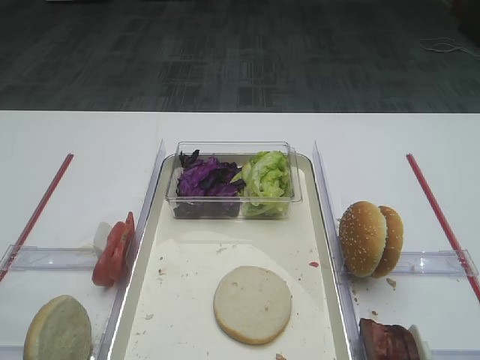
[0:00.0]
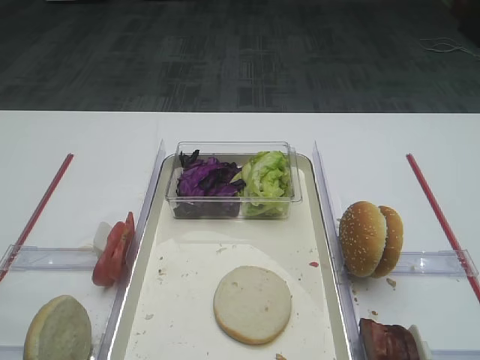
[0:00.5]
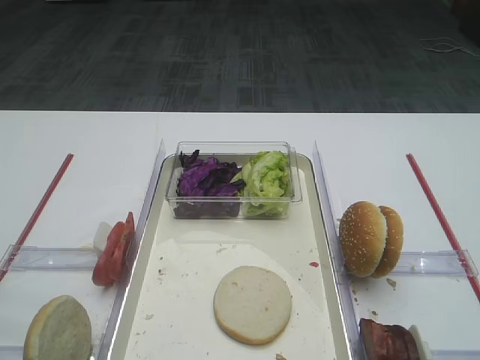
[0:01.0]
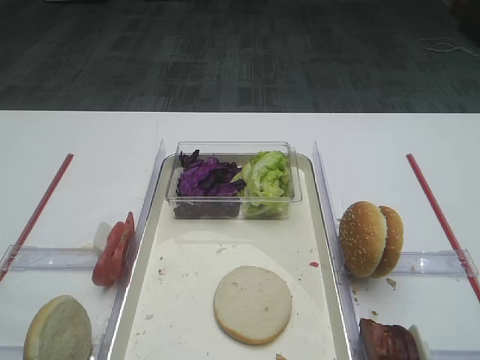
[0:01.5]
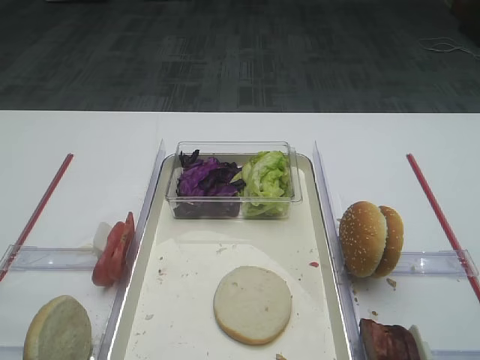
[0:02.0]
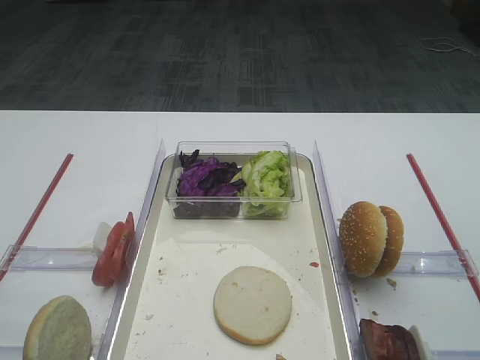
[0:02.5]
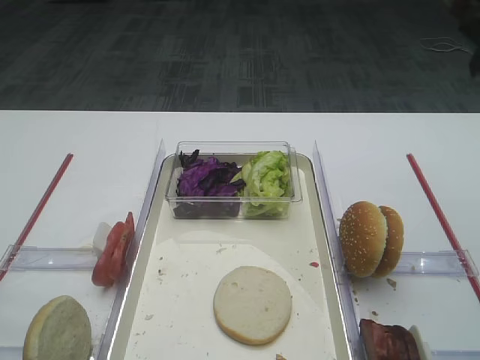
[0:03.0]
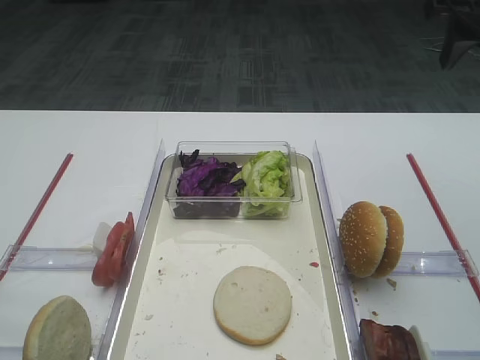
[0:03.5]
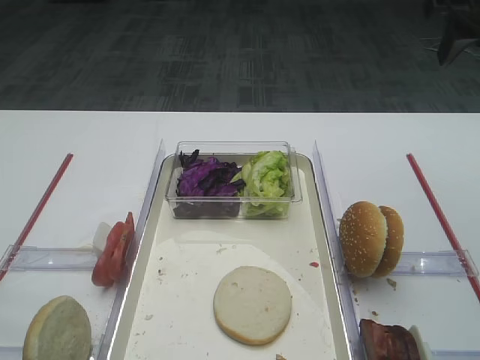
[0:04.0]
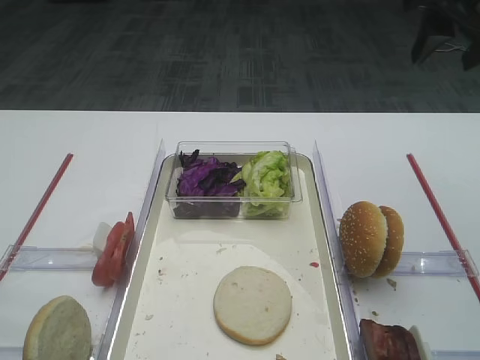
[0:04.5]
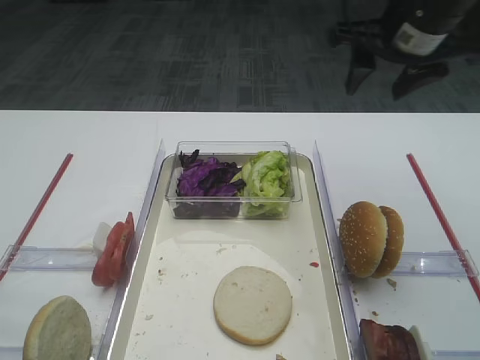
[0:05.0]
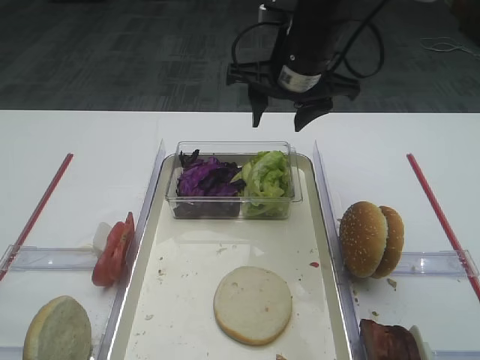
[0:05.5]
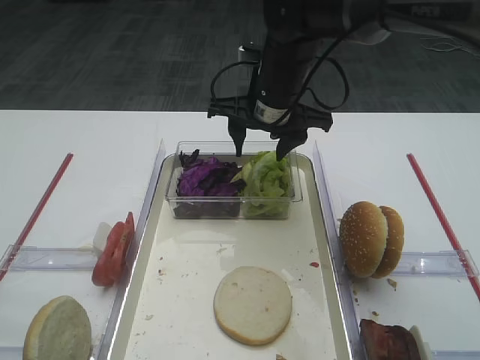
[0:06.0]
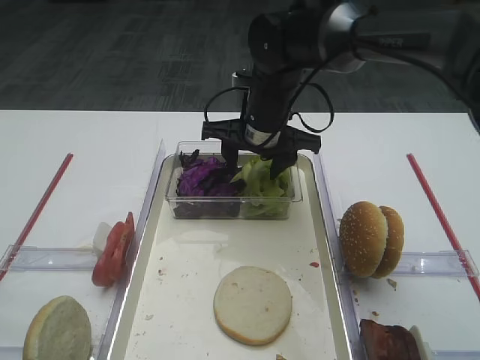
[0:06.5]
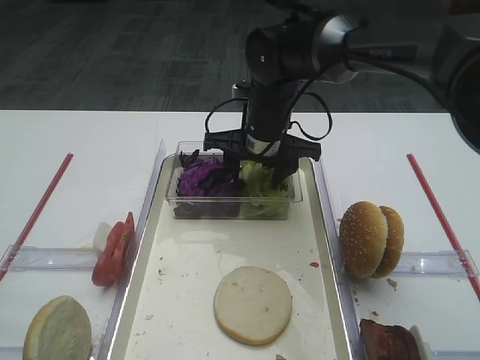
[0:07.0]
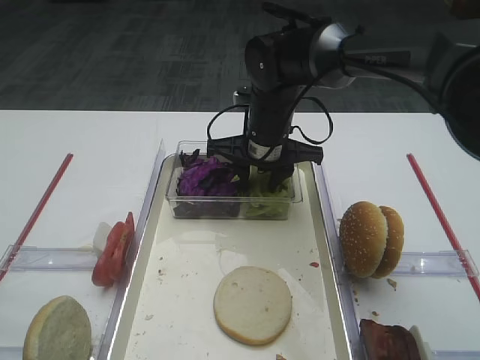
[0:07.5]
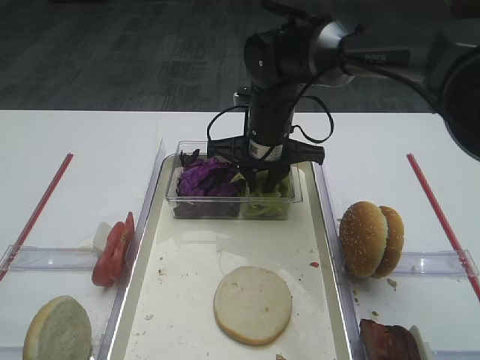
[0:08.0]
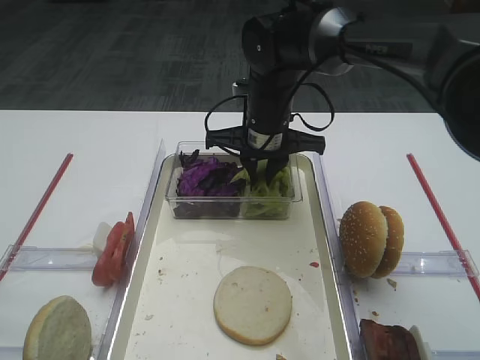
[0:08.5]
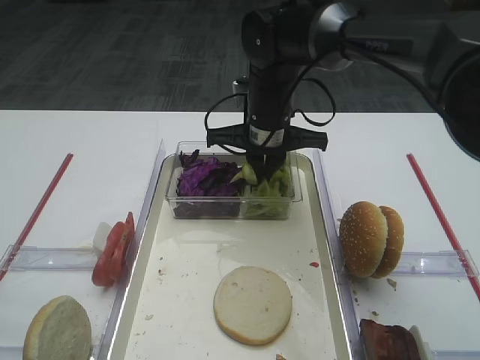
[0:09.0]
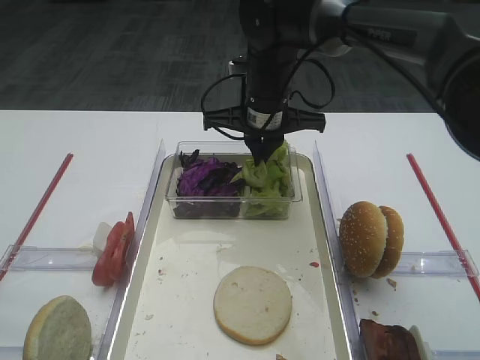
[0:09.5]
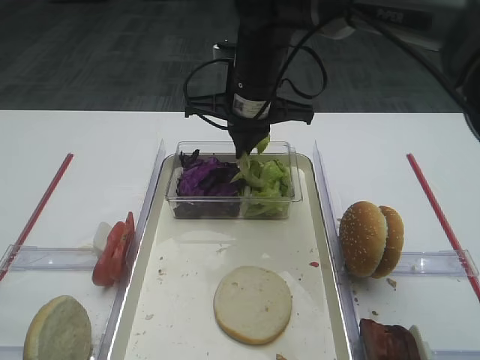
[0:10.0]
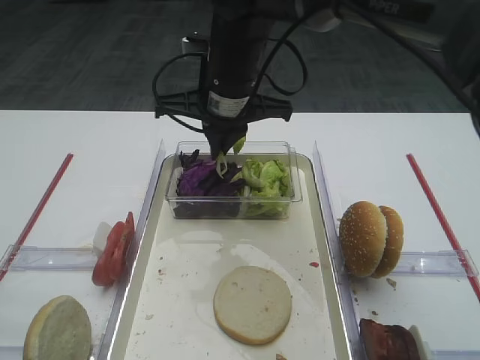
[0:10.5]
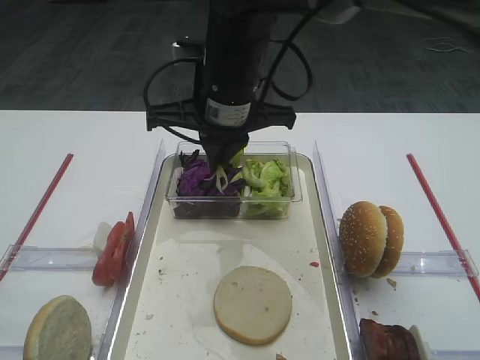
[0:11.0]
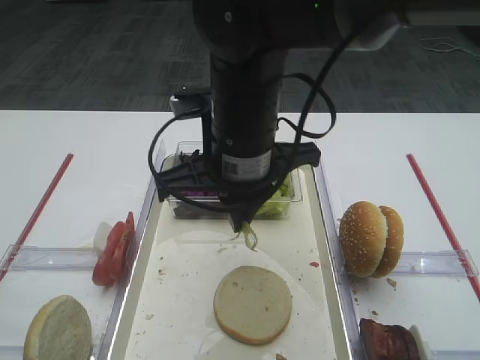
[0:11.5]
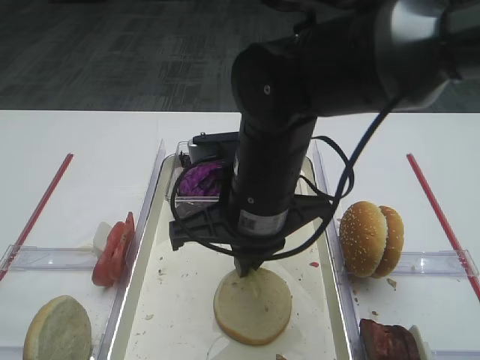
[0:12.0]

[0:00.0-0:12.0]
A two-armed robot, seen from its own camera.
Step, 0:00.0 to 0:09.5: Pick up the lettuce leaf with the right gripper.
0:04.0 to 0:06.0: The right gripper heads to the left and downward, covering approximately 25 cm.
0:06.0 to 0:08.0: The right gripper travels downward by approximately 5 cm, and closes up.
0:08.0 to 0:10.0: The right gripper travels upward by about 5 cm.
0:10.0 to 0:12.0: The right gripper is displaced backward by some 15 cm.

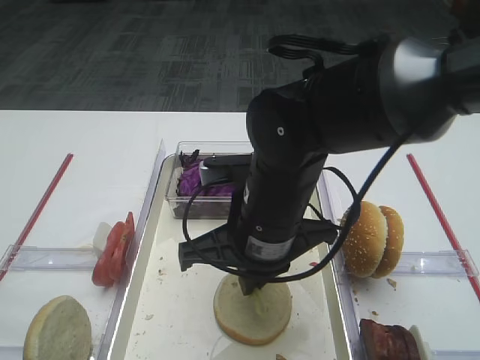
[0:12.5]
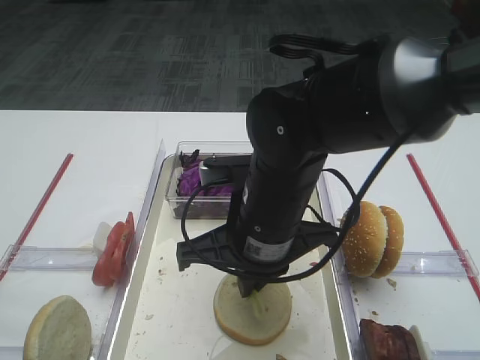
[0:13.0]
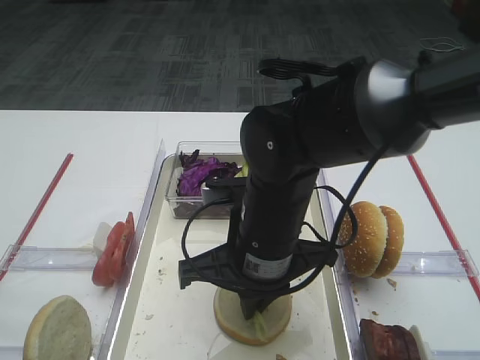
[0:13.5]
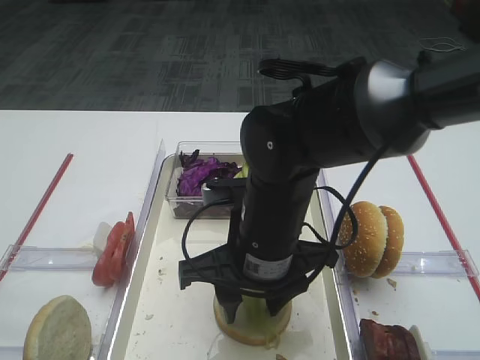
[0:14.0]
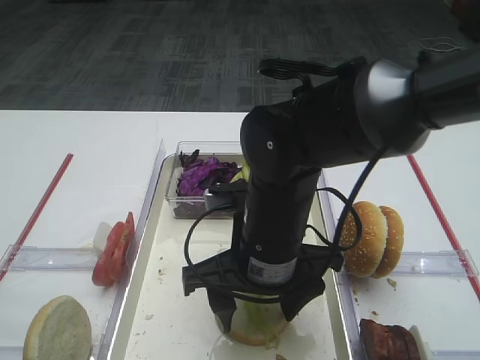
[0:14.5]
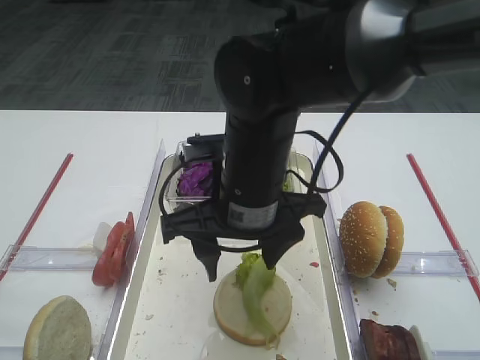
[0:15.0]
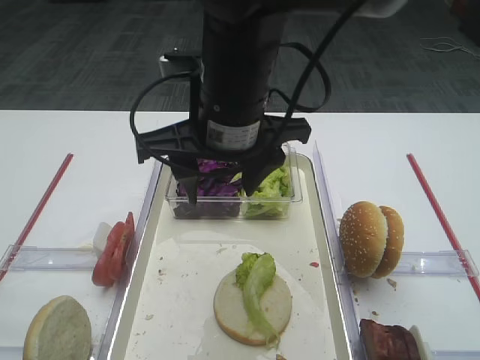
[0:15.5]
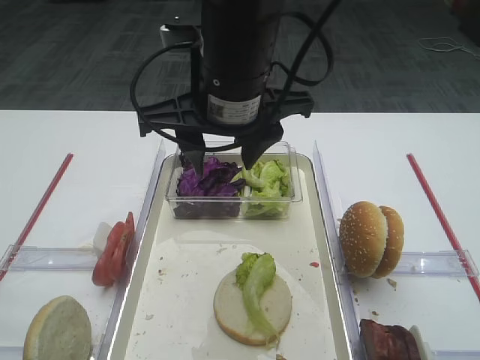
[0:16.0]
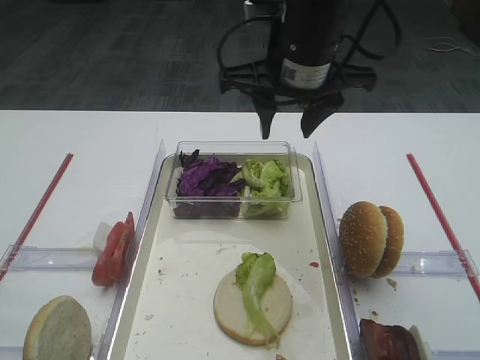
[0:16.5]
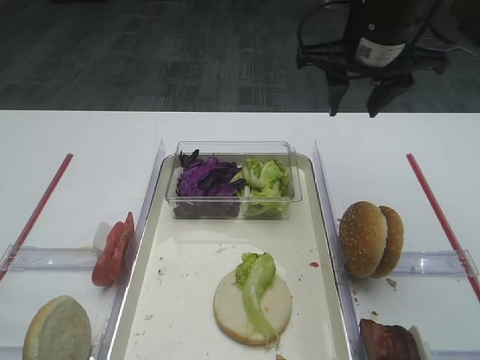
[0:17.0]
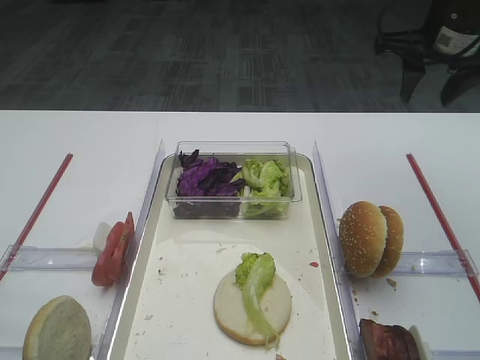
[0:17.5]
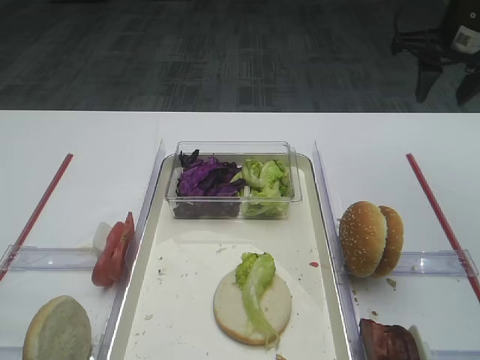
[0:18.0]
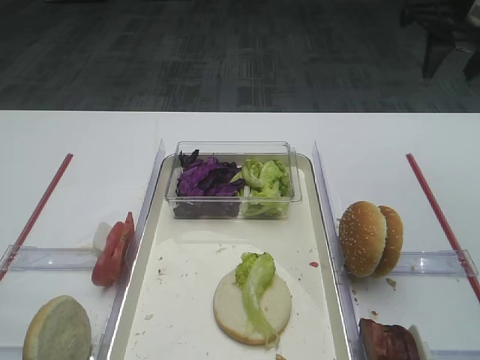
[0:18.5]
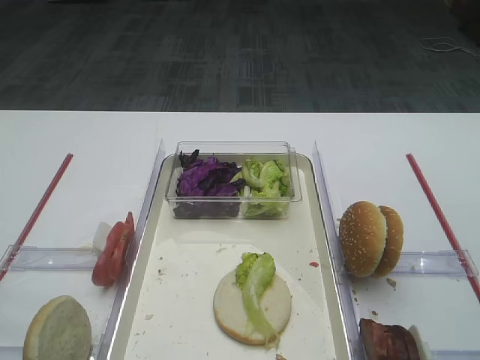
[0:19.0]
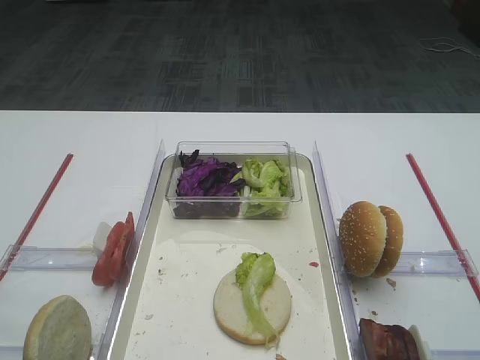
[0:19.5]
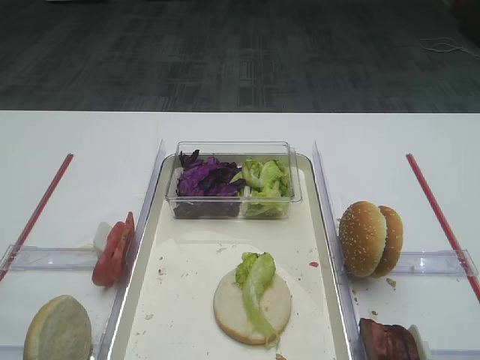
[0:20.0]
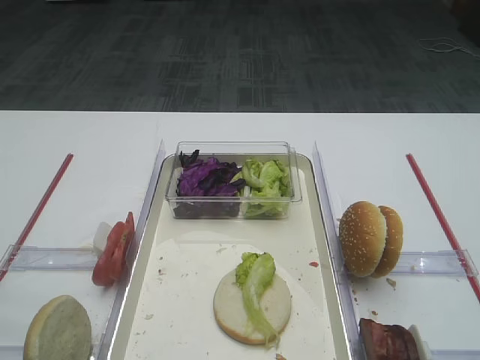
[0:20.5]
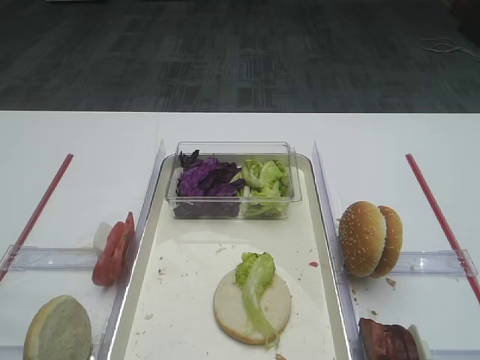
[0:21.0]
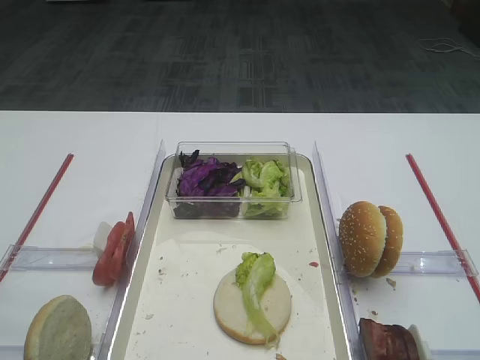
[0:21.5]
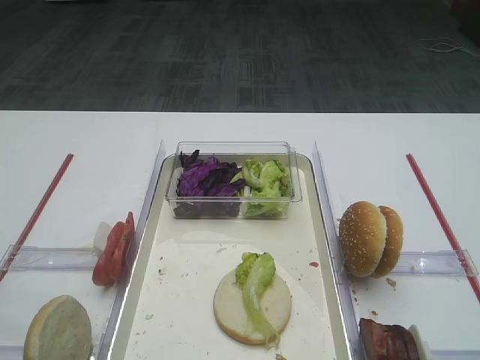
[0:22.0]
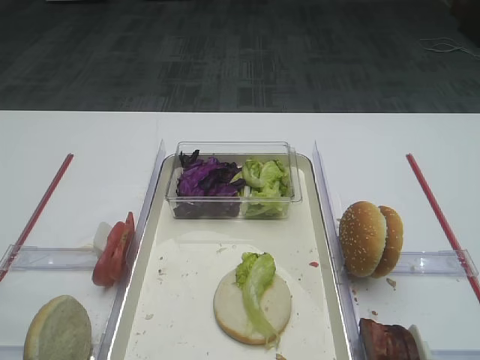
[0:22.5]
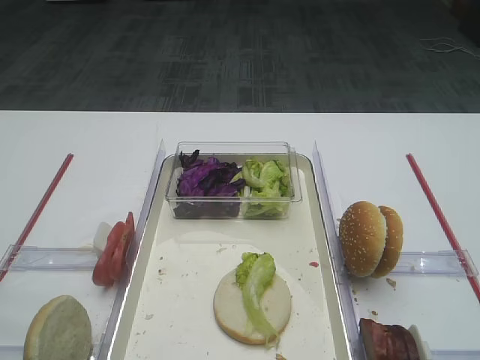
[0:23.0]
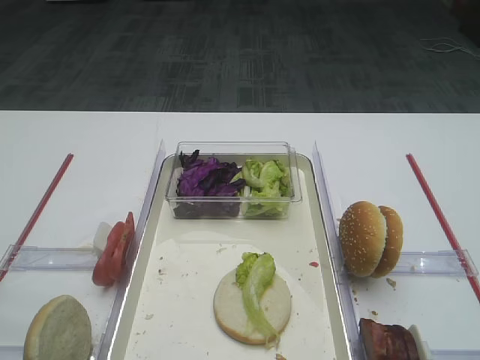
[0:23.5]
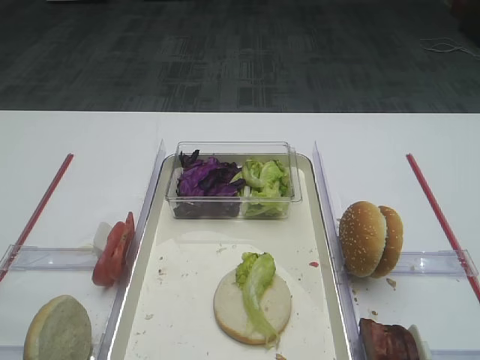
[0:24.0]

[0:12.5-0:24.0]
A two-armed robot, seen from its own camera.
Step, 0:12.5 to 0:14.5: Place the lettuce leaf on the bread slice with the right gripper.
0:12.5 to 0:14.5: The right gripper opens its fingers.
0:14.5 to 0:16.5: The right gripper moves upward and forward, some 20 cm.
0:16.5 to 0:18.5: The right gripper heads to the right, covering approximately 20 cm.
0:18.5 to 0:20.0: The right gripper moves backward, approximately 35 cm.
0:22.0 to 0:24.0: Neither gripper changes place.

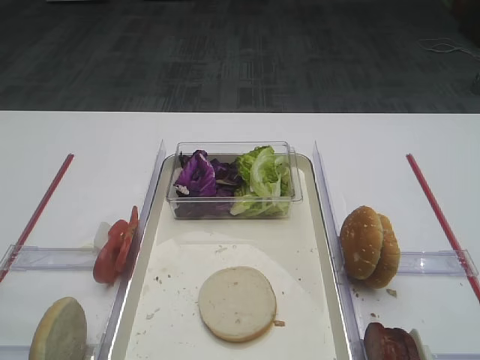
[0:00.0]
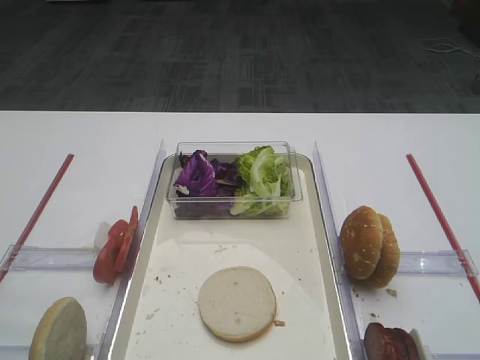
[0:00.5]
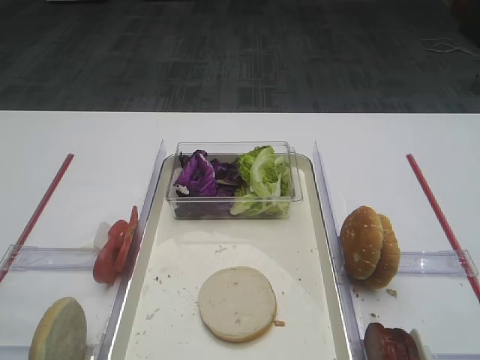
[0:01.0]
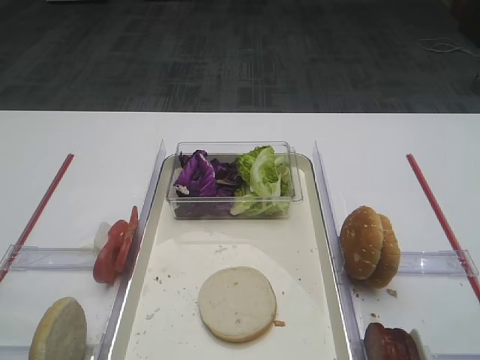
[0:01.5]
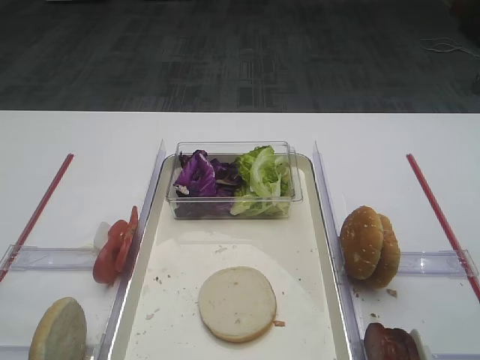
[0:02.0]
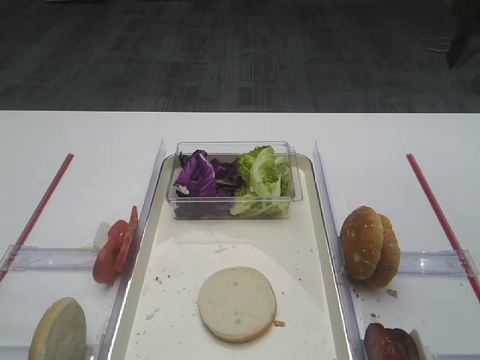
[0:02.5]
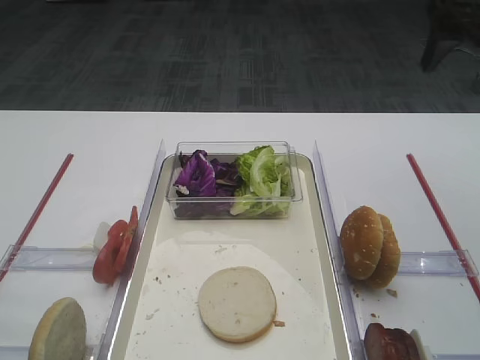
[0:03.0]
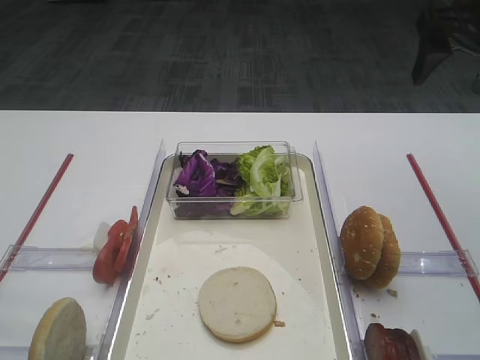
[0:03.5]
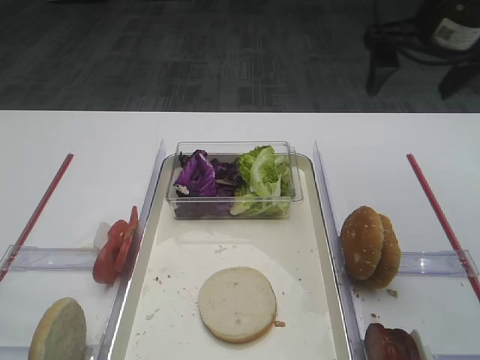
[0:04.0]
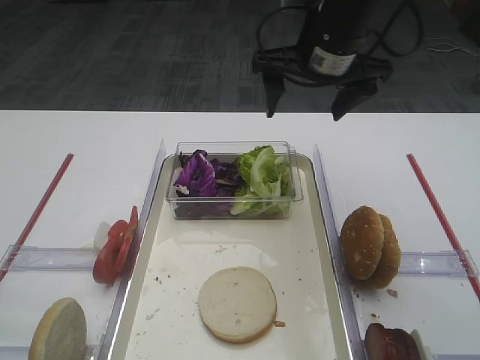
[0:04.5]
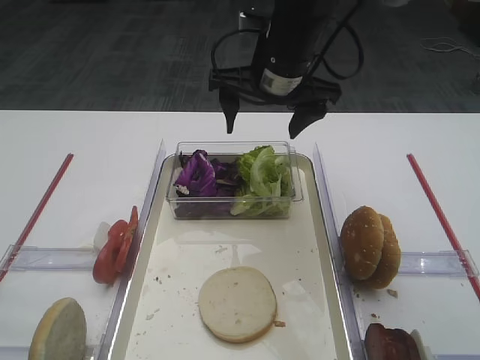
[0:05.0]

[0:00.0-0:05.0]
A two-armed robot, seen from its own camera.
0:02.5 to 0:05.0: The right gripper is displaced to the left, downward and forward by roughly 25 cm.
